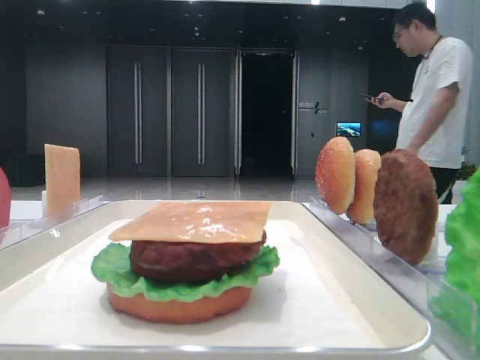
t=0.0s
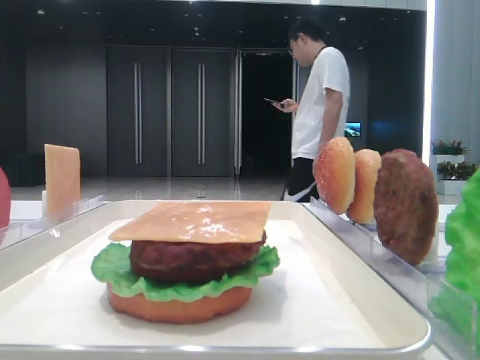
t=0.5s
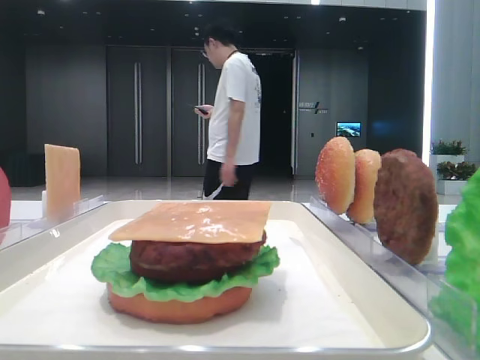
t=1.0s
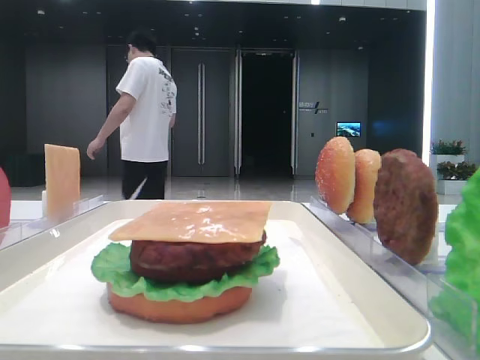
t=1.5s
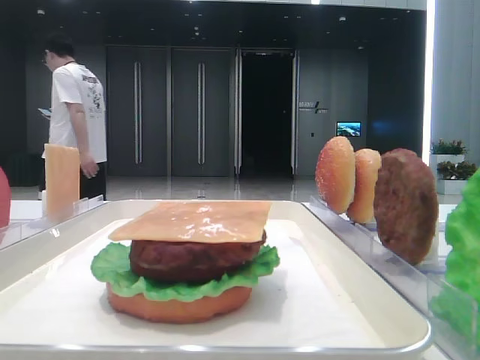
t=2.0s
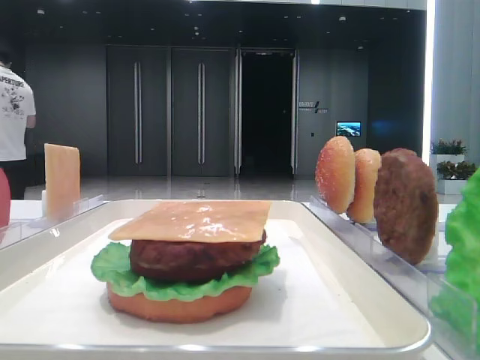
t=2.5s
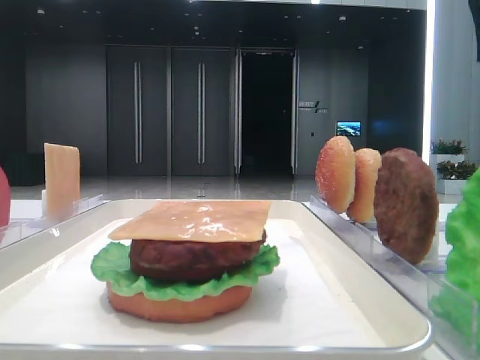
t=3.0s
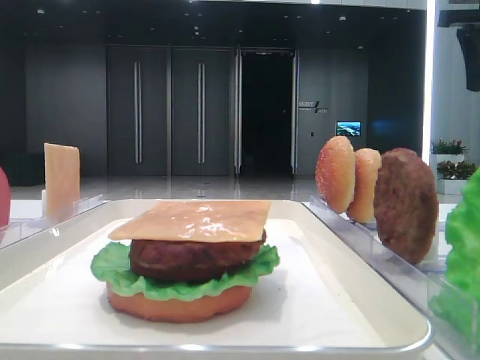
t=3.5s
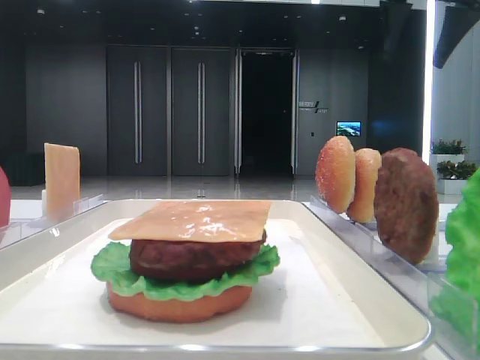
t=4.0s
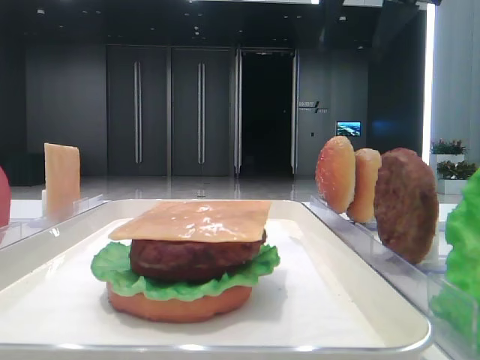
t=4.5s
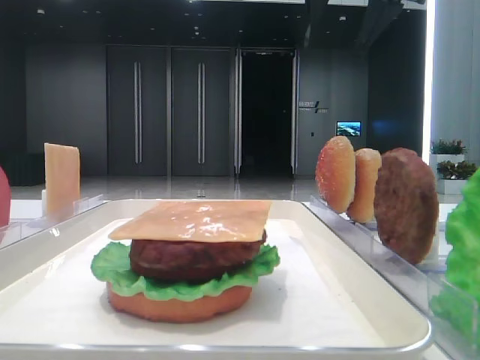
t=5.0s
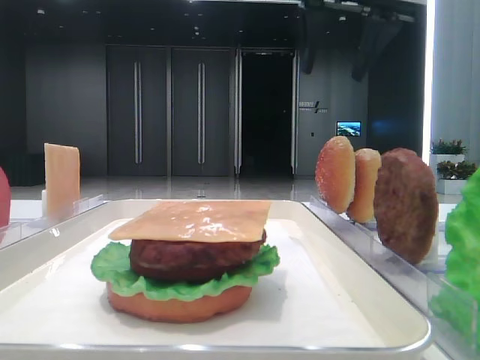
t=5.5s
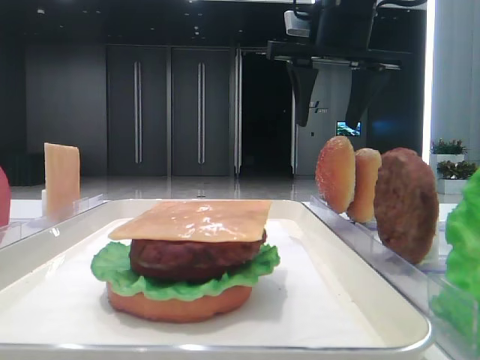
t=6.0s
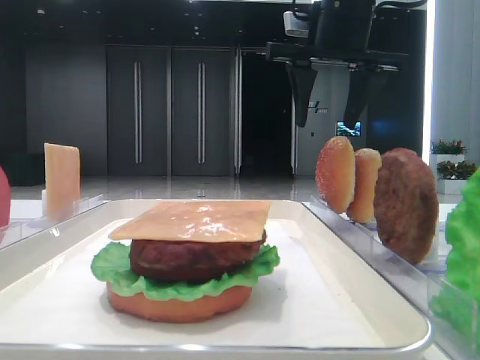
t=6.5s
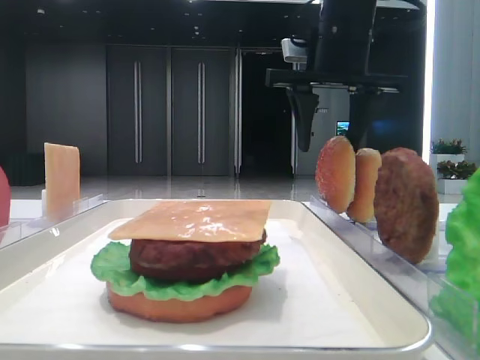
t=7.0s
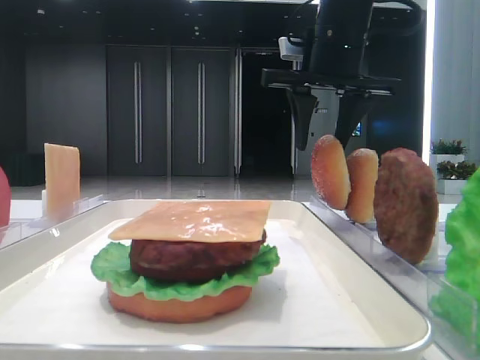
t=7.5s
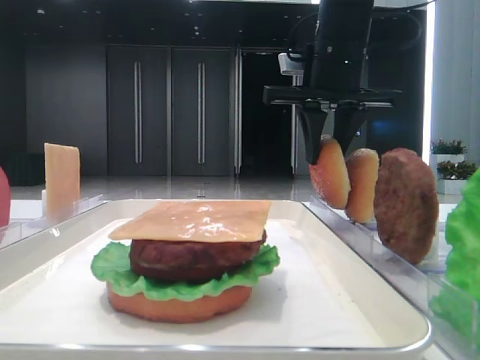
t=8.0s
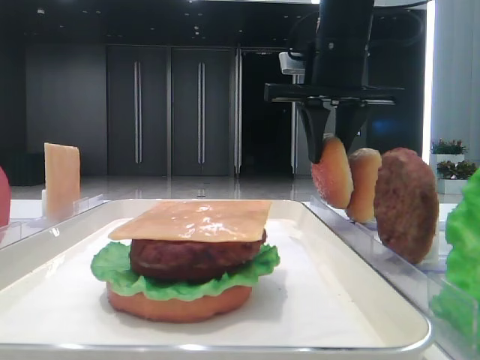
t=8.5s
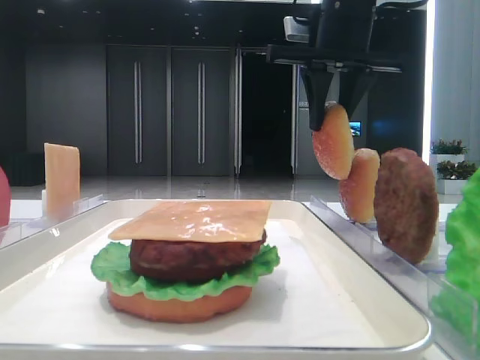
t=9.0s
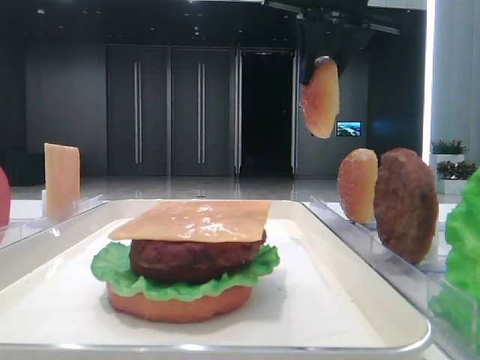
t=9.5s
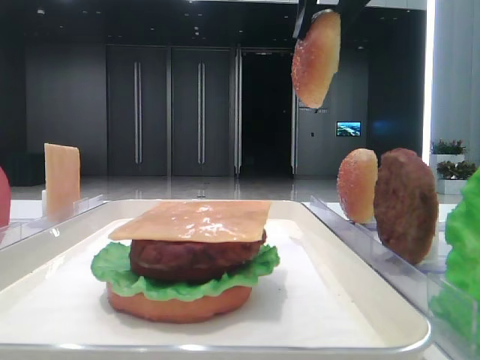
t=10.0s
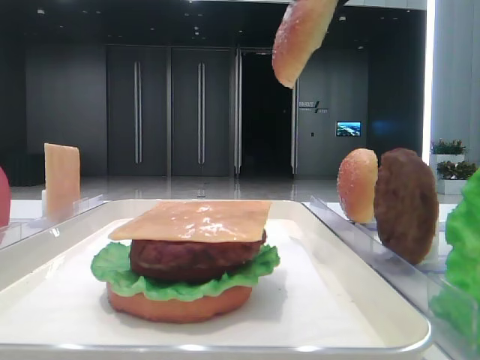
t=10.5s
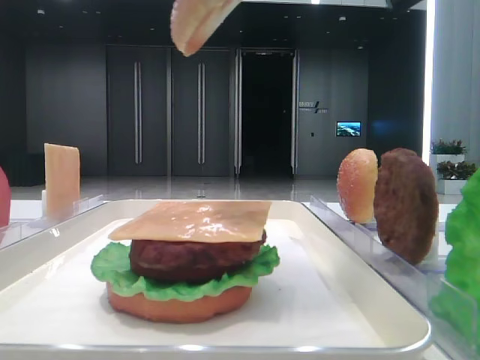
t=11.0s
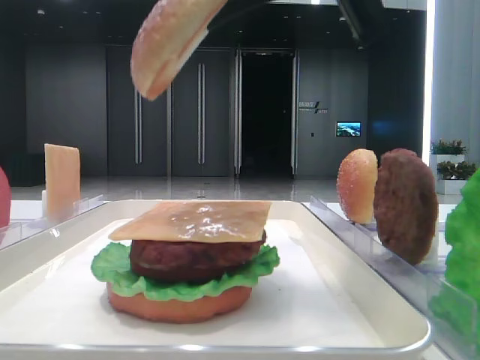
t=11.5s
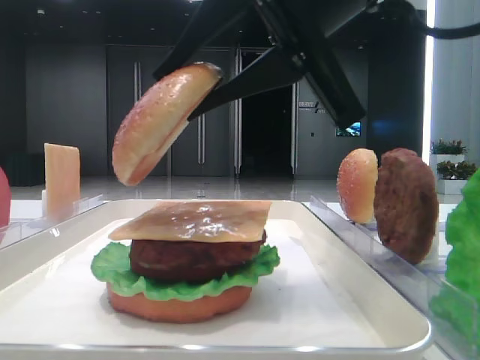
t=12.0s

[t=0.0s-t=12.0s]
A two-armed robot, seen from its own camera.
Step, t=0.0s to t=8.0s: Pick up the top bread slice with the right hand.
t=2.0s to t=4.0s: The right gripper heads forward, covering some 25 cm.
t=4.0s to t=6.0s: The right gripper shifts roughly 10 cm to the left and downward.
t=6.0s to t=8.0s: The right gripper closes up.
t=8.0s to t=10.0s: The right gripper travels upward and backward by approximately 15 cm.
t=10.0s to t=12.0s: The right gripper heads downward and backward, covering roughly 15 cm.

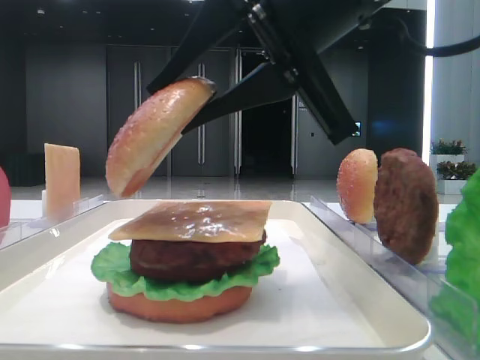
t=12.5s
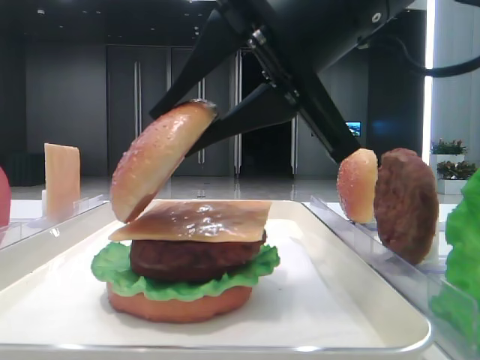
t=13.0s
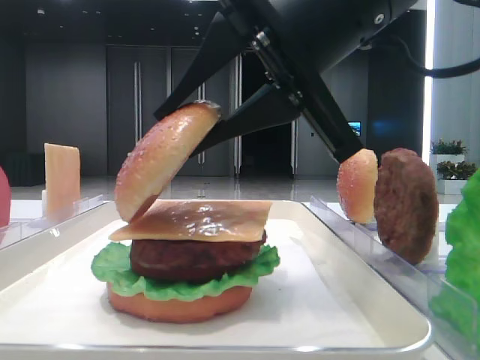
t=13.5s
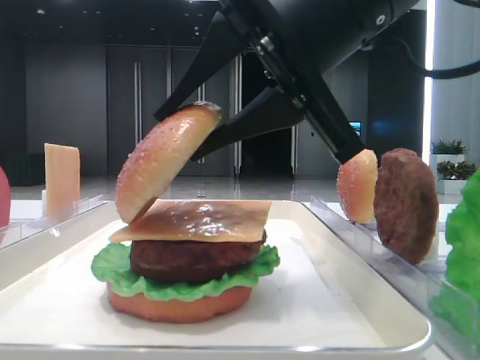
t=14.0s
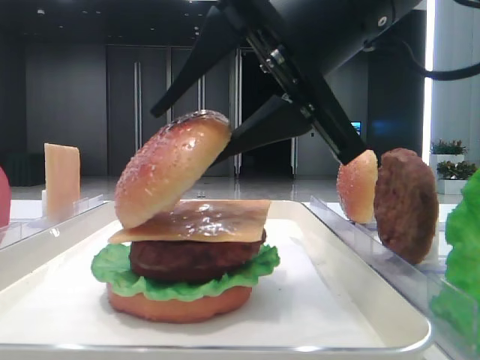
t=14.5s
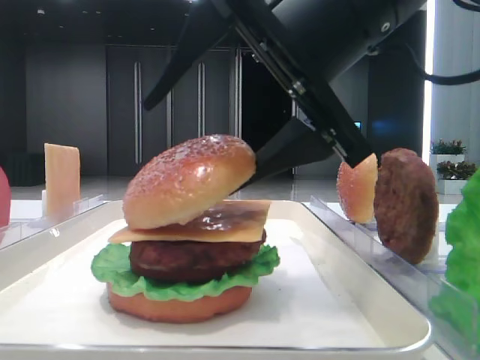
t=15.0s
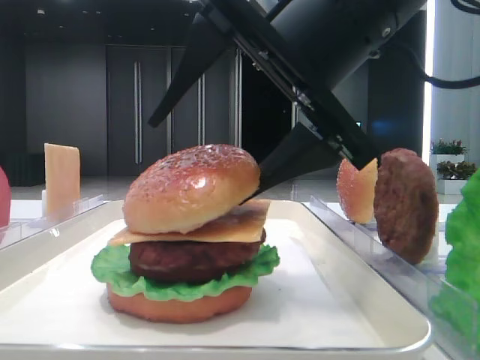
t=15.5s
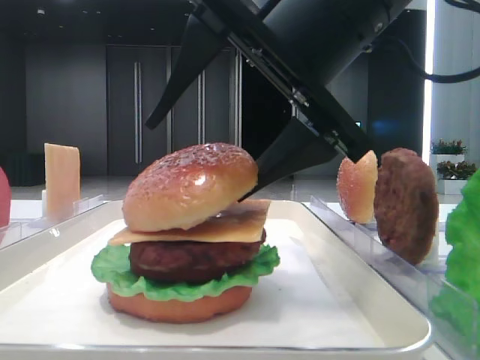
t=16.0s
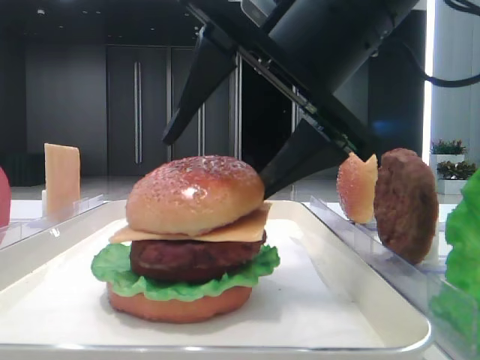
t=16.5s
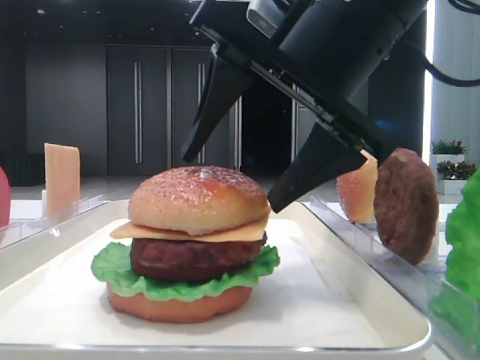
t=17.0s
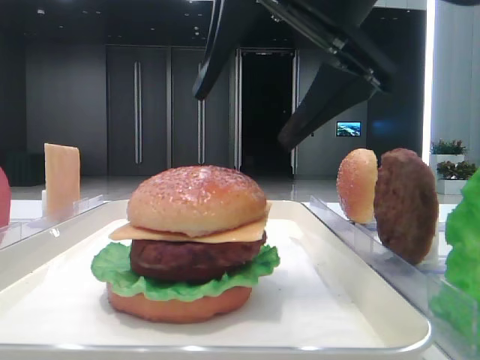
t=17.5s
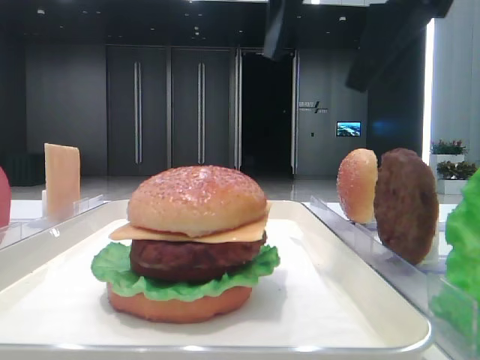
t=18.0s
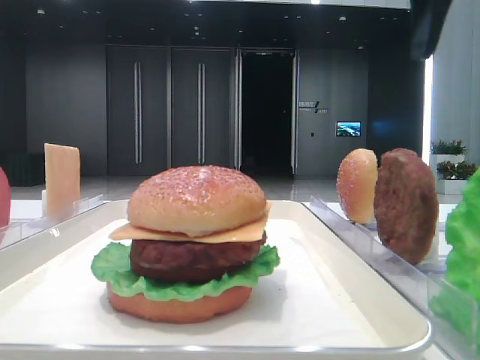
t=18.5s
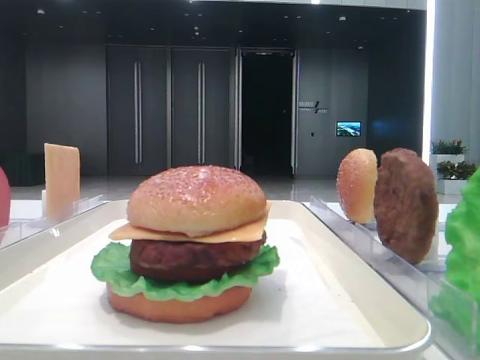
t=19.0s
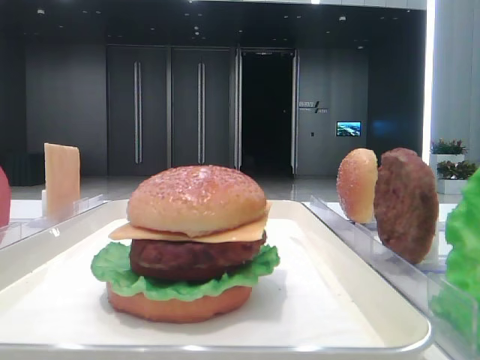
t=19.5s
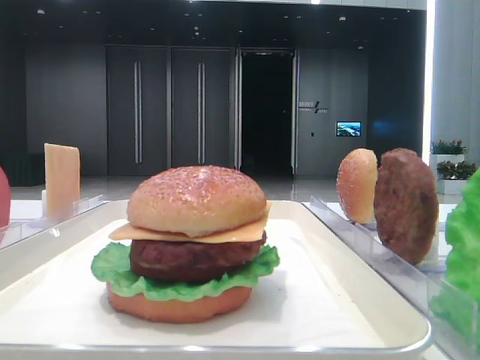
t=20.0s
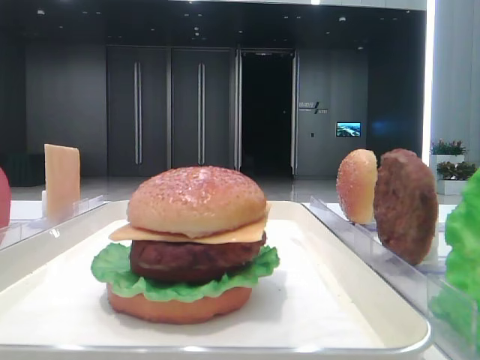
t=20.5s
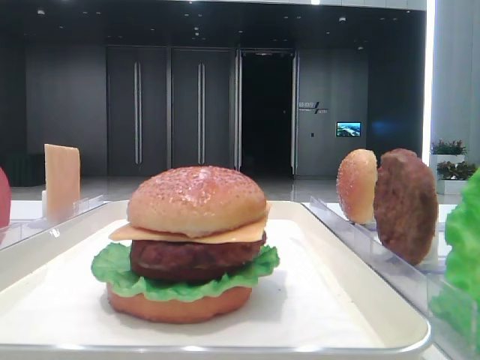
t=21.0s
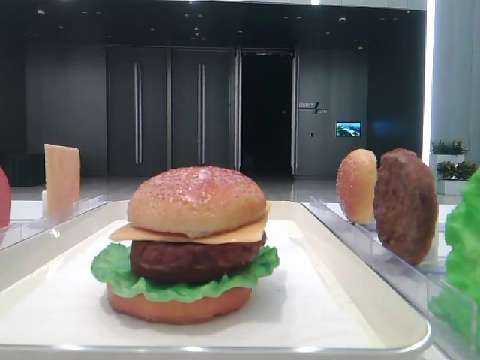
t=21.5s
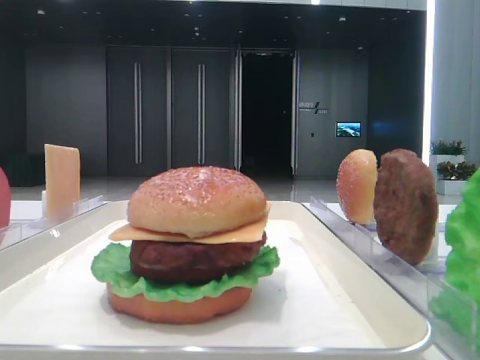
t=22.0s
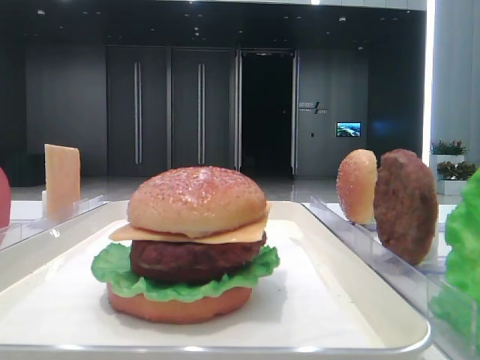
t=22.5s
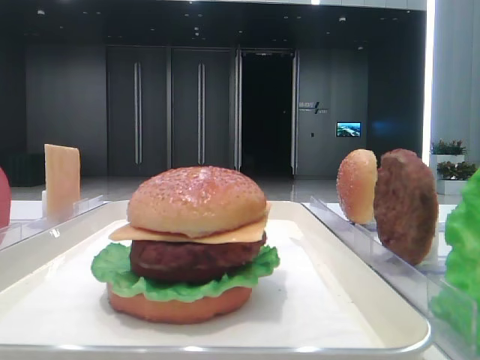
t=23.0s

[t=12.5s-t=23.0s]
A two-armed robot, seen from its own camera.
Step, t=12.5s to t=16.5s: Place the top bread slice on the cheese with the right hand.
t=12.5s to t=14.5s: The right gripper opens its fingers.
t=14.5s to t=16.5s: The right gripper opens.
t=16.5s to t=19.0s: The right gripper heads to the right and upward, covering roughly 25 cm.

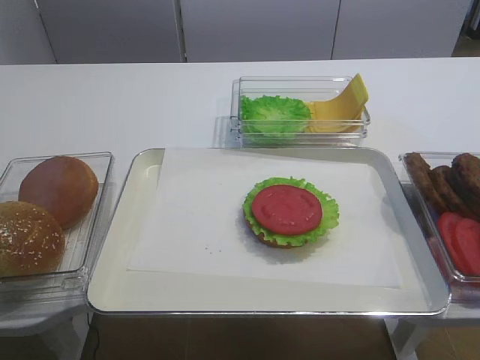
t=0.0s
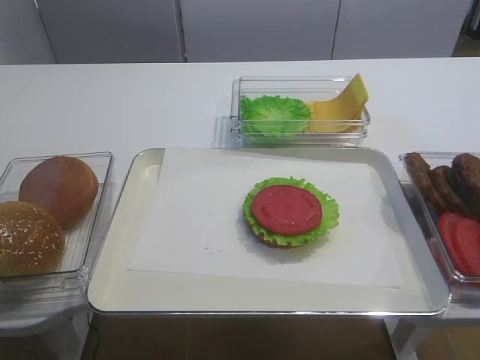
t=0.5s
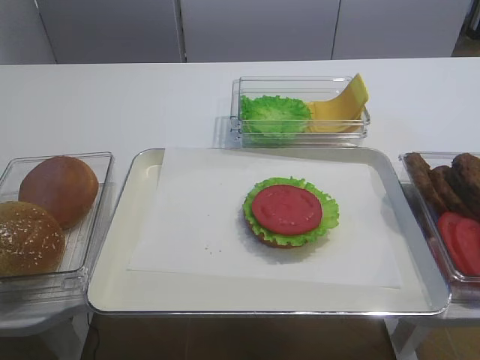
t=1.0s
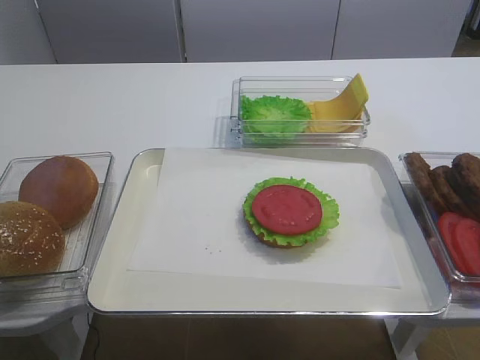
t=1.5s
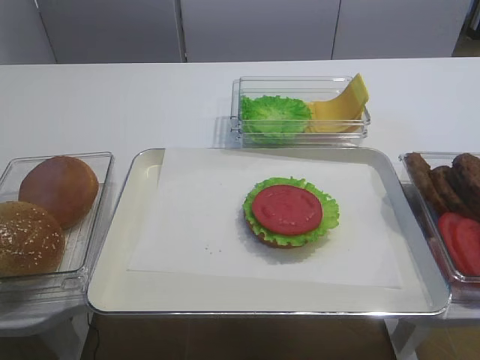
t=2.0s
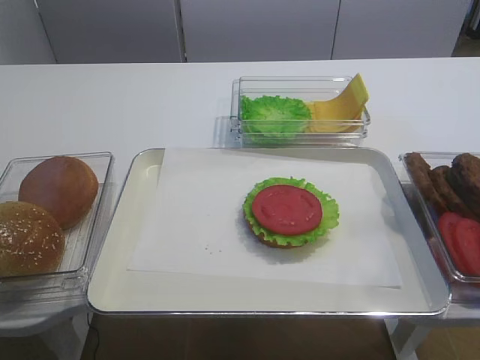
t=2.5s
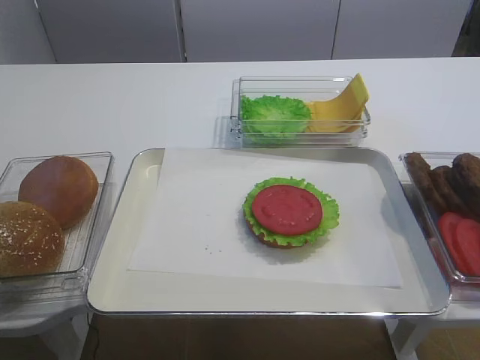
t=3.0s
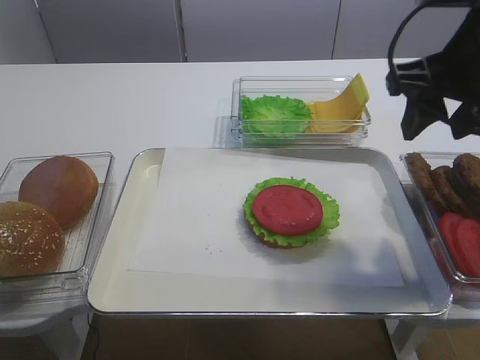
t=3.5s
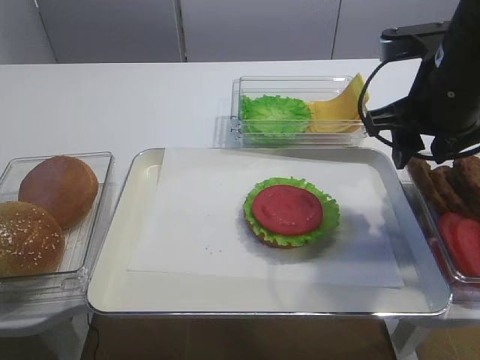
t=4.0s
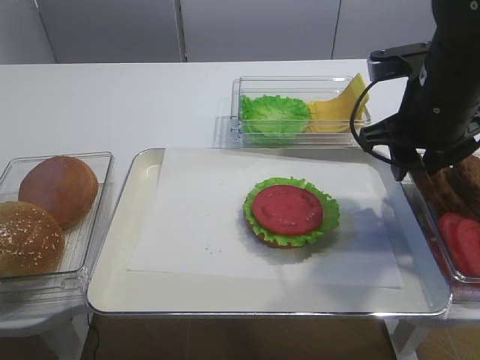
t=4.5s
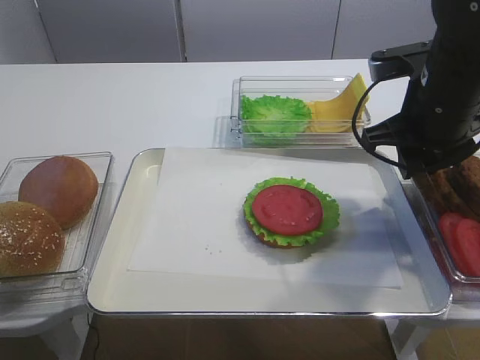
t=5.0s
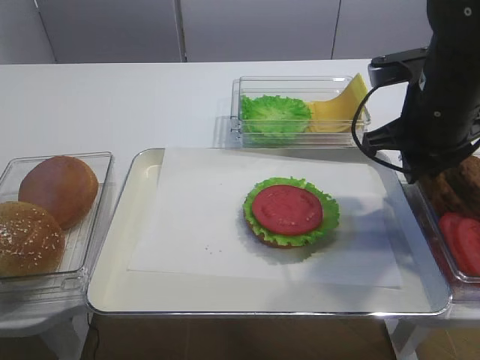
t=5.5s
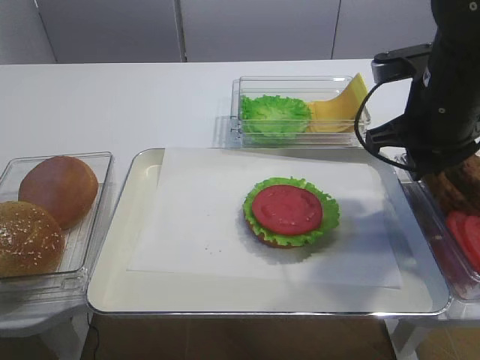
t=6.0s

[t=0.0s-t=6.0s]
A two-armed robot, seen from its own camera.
t=2.0s to t=4.0s: The right gripper travels forward by approximately 30 cm.
t=4.0s to t=6.0s: The right gripper closes up.
